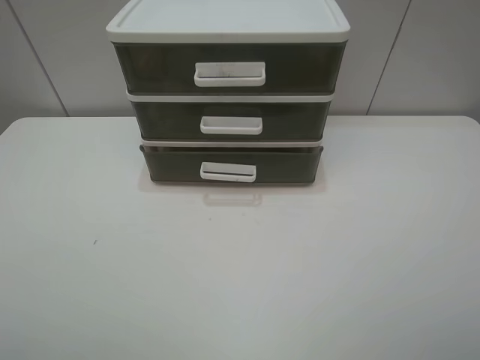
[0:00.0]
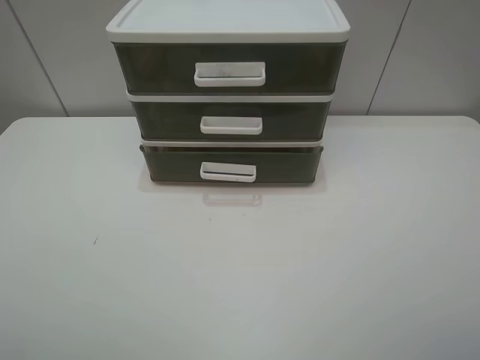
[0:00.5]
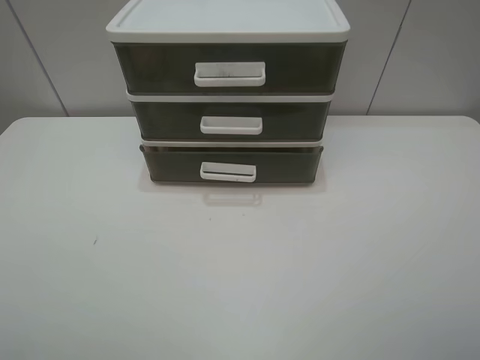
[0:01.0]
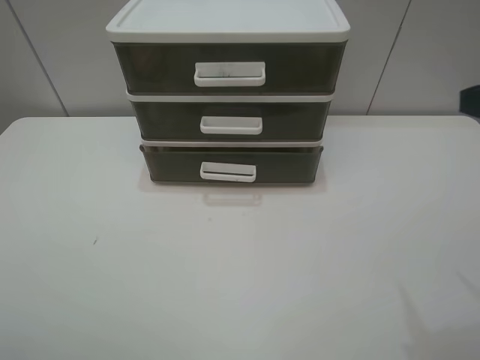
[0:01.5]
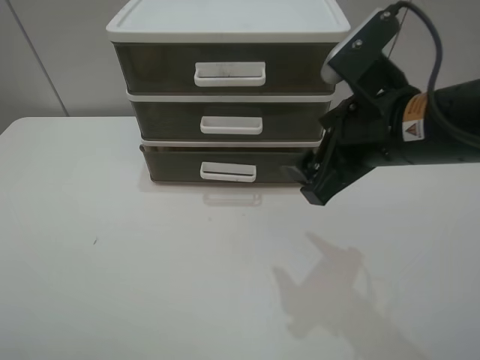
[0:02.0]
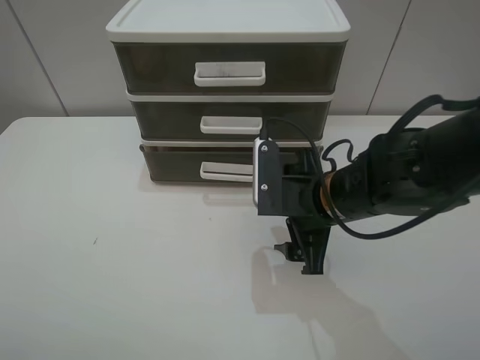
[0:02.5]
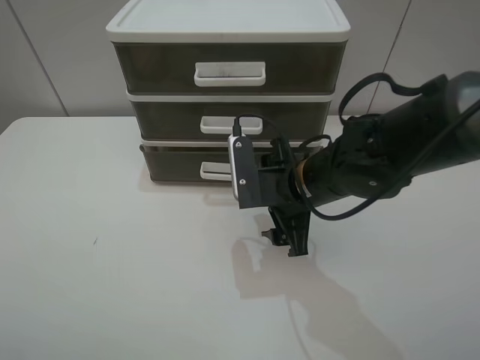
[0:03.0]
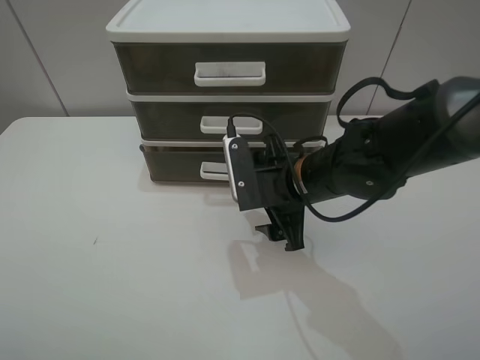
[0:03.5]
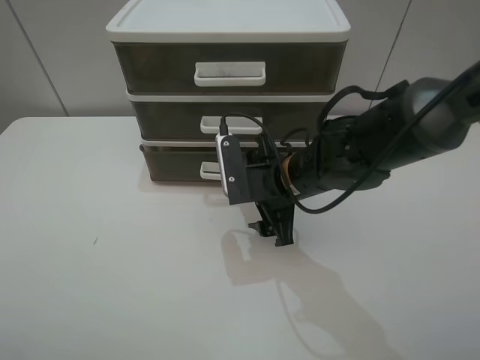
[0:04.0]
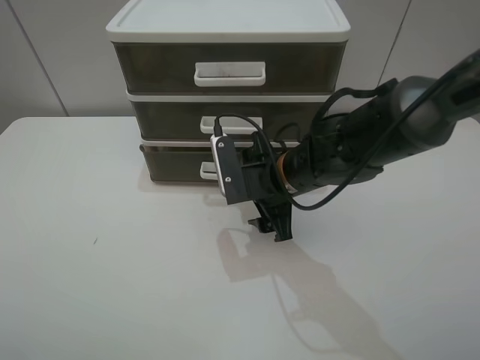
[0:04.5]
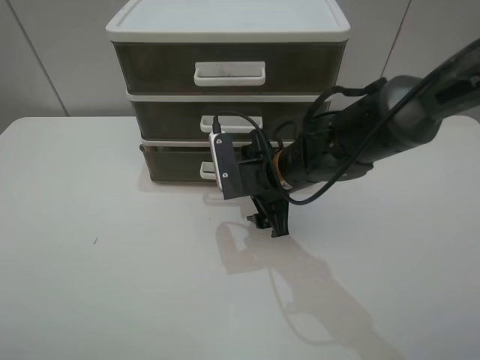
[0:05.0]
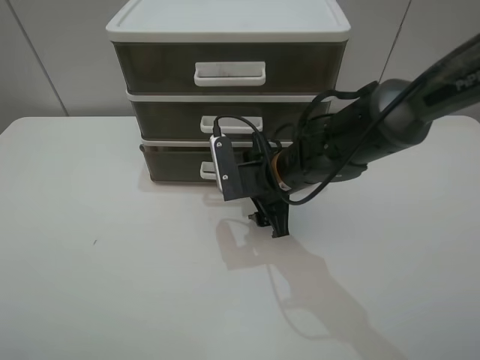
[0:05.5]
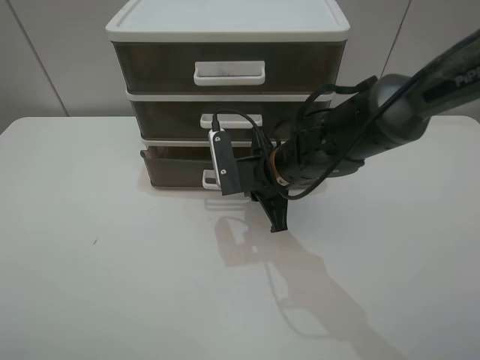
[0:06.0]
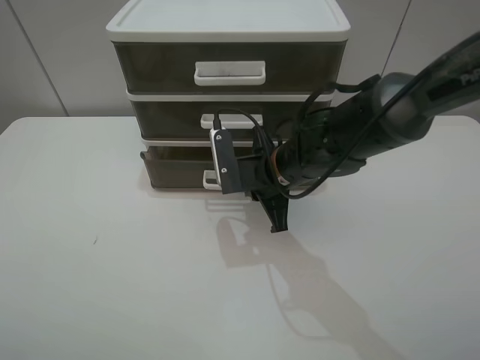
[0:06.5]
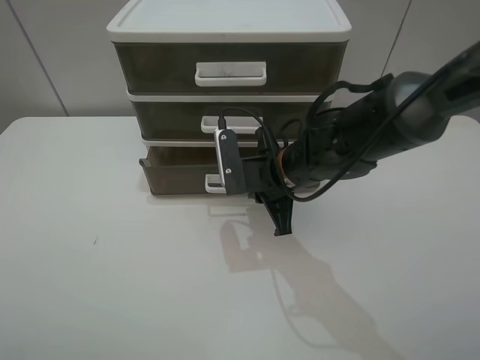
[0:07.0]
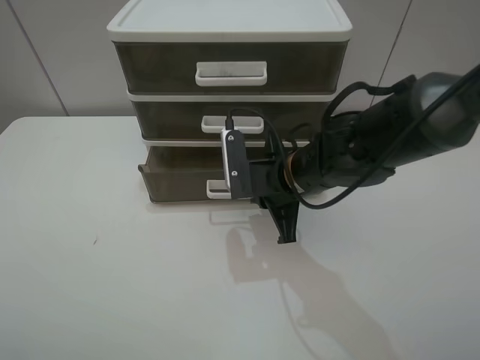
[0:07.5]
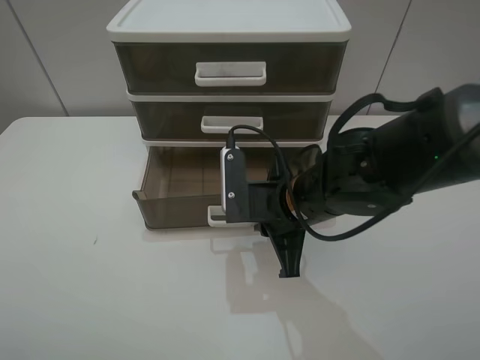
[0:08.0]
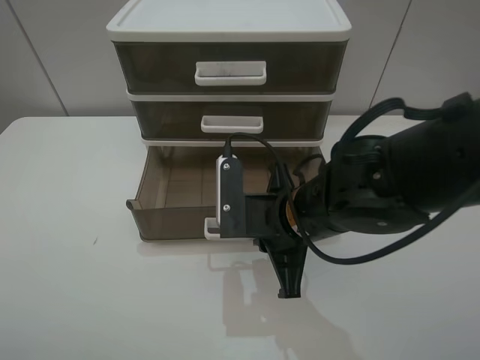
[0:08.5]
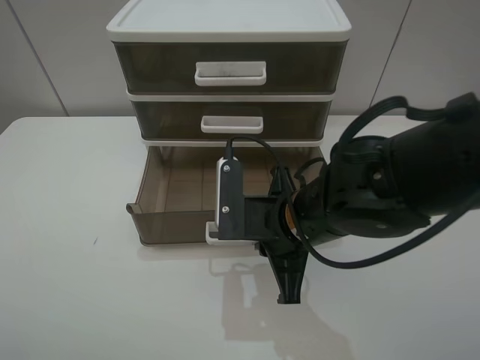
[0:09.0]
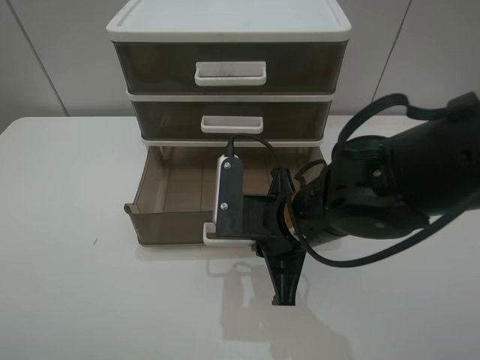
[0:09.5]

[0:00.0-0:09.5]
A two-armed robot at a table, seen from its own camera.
Task of the whole recording: open the bottom drawer.
Step, 0:00.0 to 0:06.0: Grab the bottom drawer with the right gripper.
0:00.0 to 0:02.0: The right gripper goes approximately 25 cm forward and to the left.
0:02.0 to 0:04.0: The right gripper shifts about 15 cm downward, forward and to the left.
0:04.0 to 0:05.5: The grippers move only a little.
0:05.5 to 0:07.5: The right gripper closes.
0:07.5 to 0:09.5: The right gripper travels backward by about 10 cm.

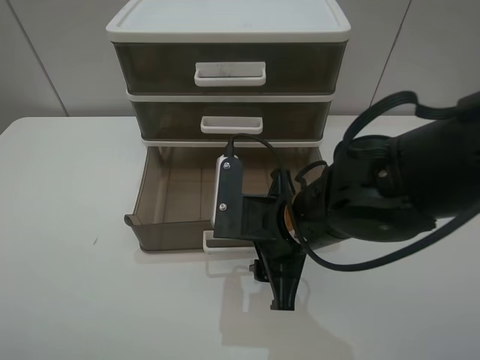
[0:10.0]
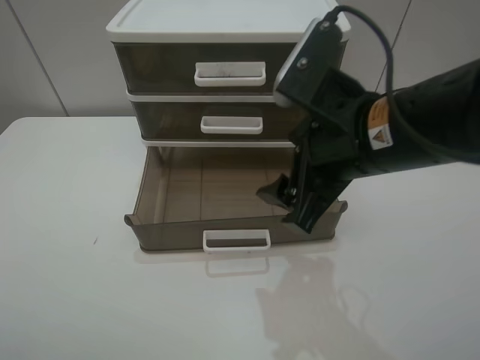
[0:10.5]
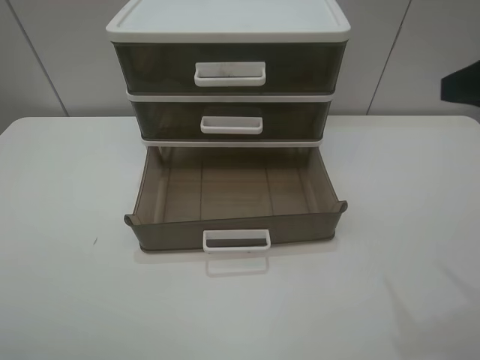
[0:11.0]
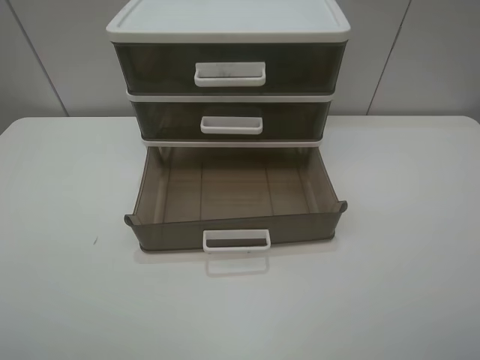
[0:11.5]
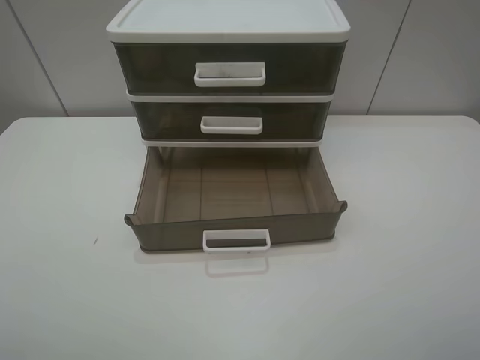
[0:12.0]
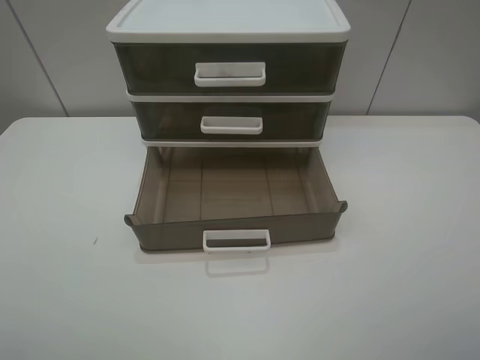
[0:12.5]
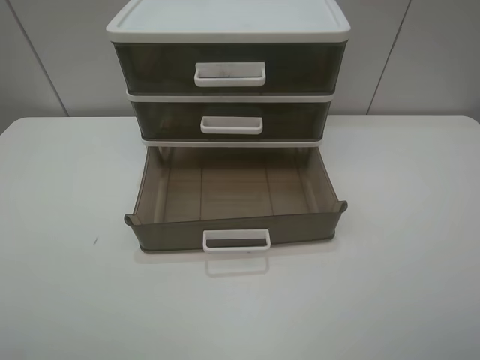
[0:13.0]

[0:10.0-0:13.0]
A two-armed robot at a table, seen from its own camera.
Task of the whole recording: open the bottom drawer.
0:10.0 to 0:11.5: The right gripper heads to the right, upward and backward, covering about 30 cm.

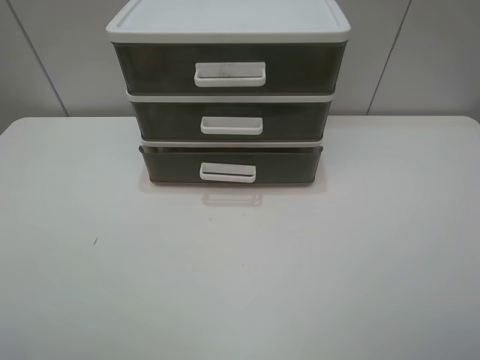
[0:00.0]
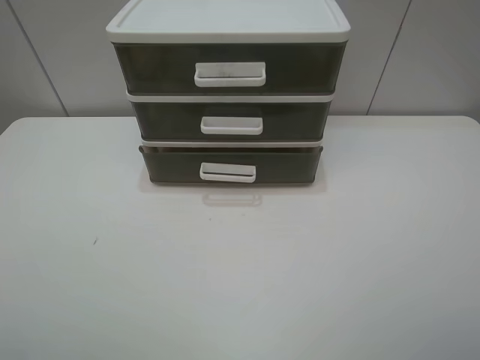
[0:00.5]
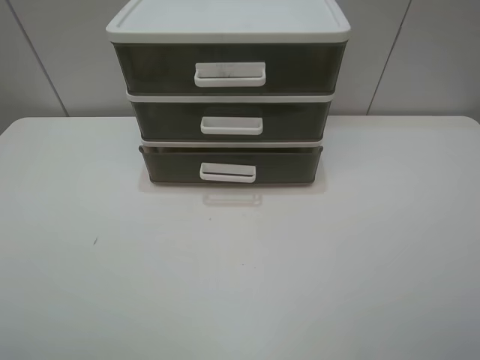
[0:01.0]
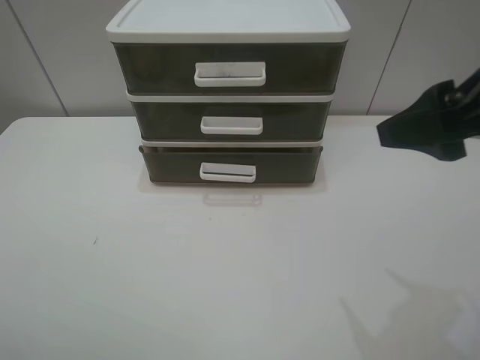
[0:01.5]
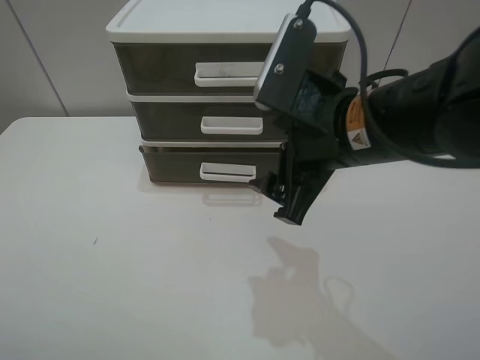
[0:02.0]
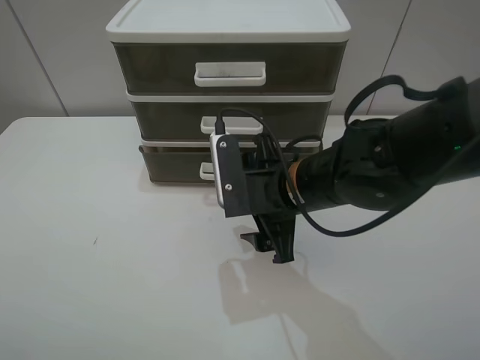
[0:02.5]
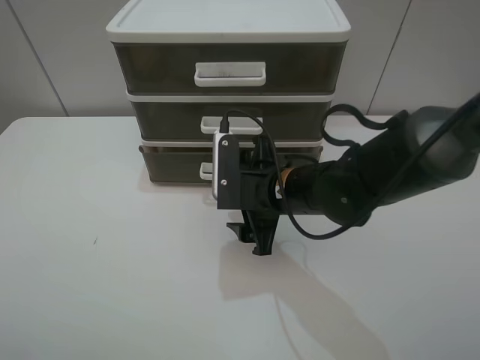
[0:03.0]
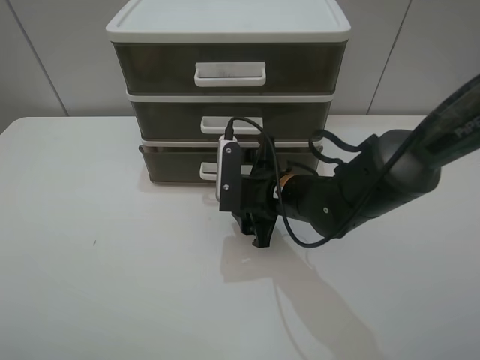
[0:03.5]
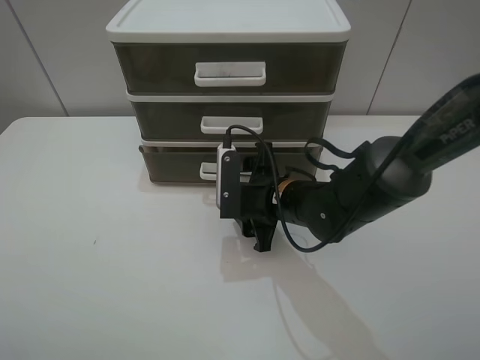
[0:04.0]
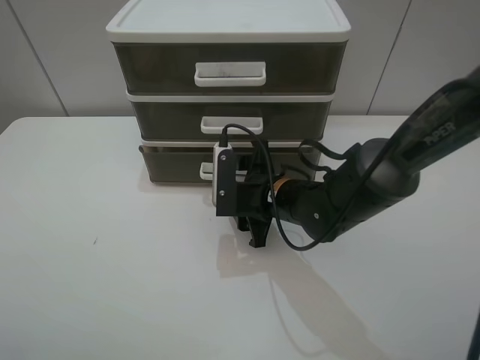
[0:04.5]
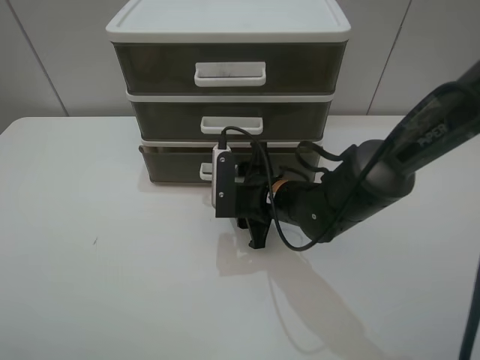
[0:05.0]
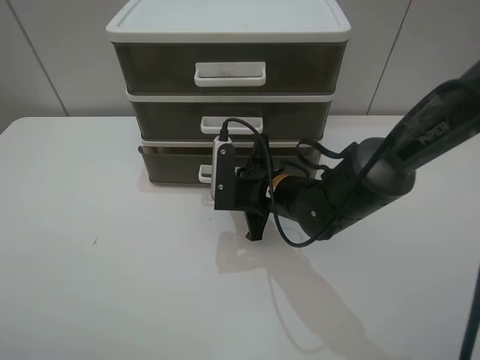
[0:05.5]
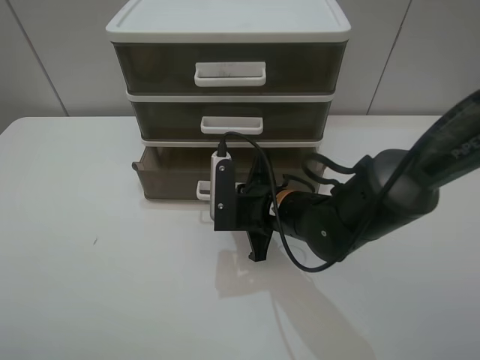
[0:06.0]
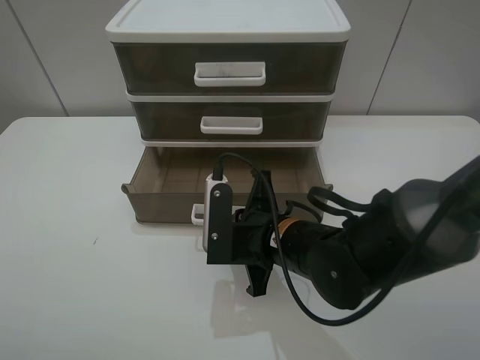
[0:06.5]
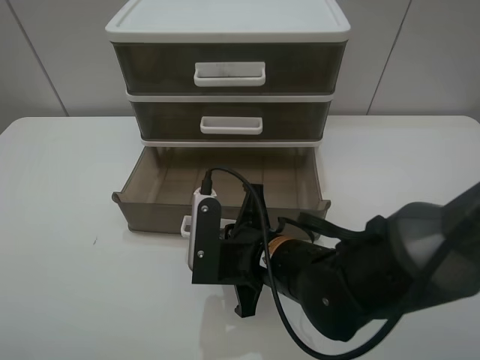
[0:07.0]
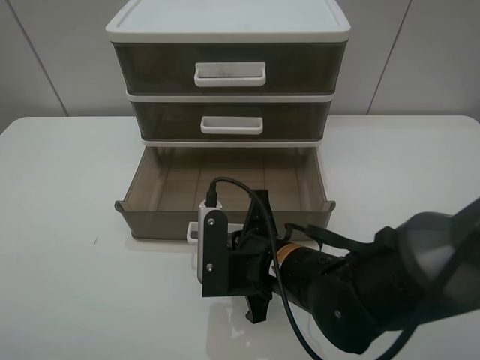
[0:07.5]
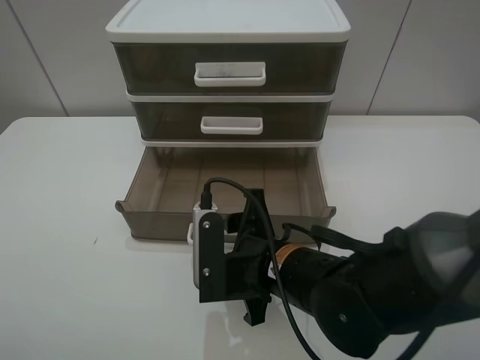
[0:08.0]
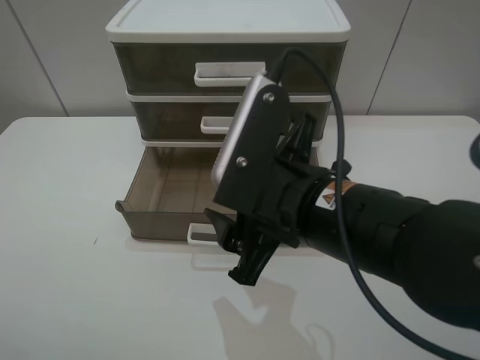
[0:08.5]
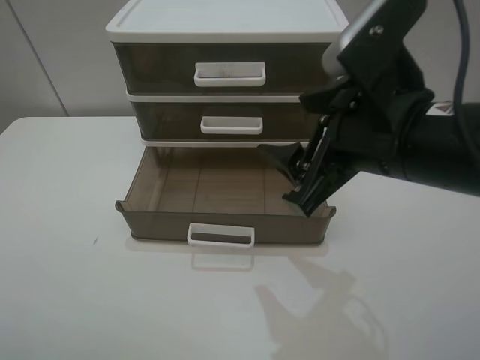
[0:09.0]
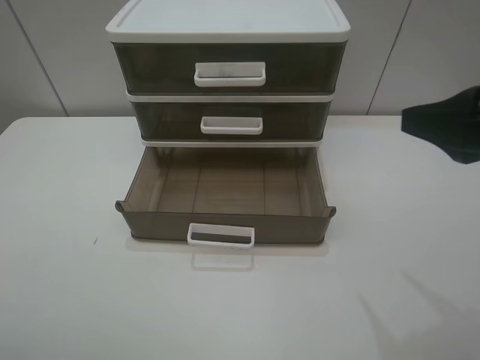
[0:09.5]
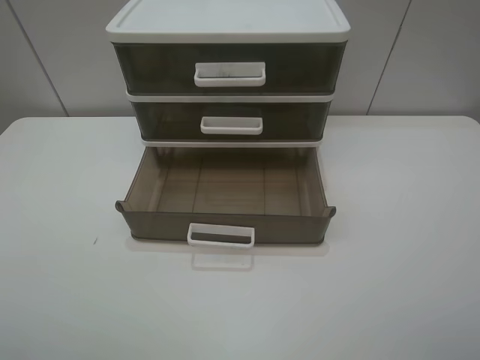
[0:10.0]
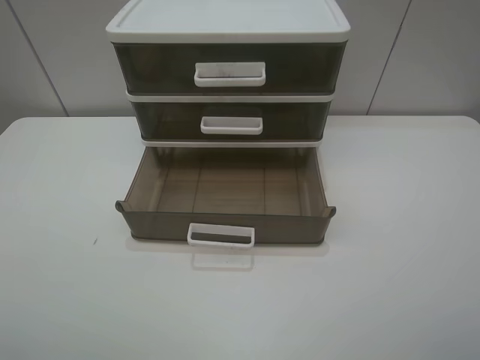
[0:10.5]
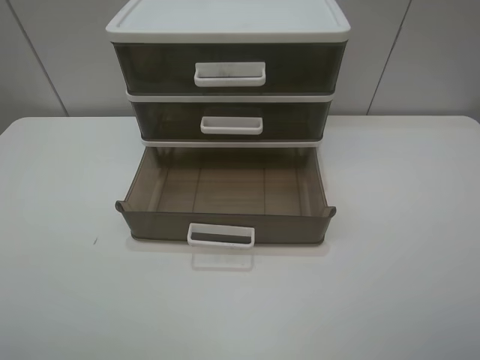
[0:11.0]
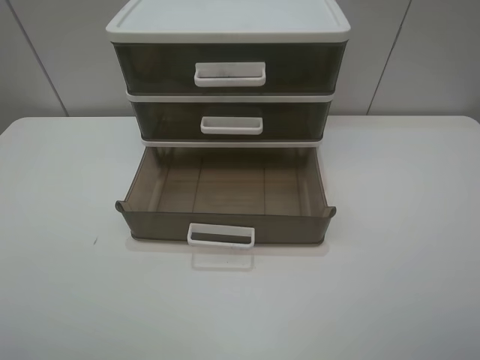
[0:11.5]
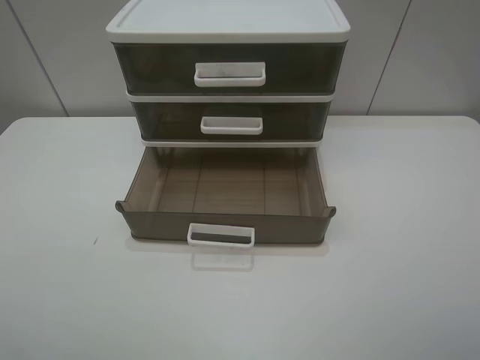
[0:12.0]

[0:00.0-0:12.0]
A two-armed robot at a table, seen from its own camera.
Task of the whole recording: open the bottom drawer.
Step, 0:00.0 to 0:05.0: Grab the bottom drawer with the right gripper.
Step, 0:05.5 to 0:08.0: Pull open the drawer with the right gripper.
0:00.0 to 0:02.0: The right gripper moves forward and to the left, about 30 cm.
0:02.0 to 0:04.0: The right gripper shifts about 15 cm downward.
0:04.0 to 0:06.0: The right gripper closes up.
0:06.0 to 0:08.0: The right gripper heads backward, covering roughly 10 cm, and opens its fingers.
0:08.0 to 0:10.0: The right gripper moves to the right, upward and backward, about 40 cm.

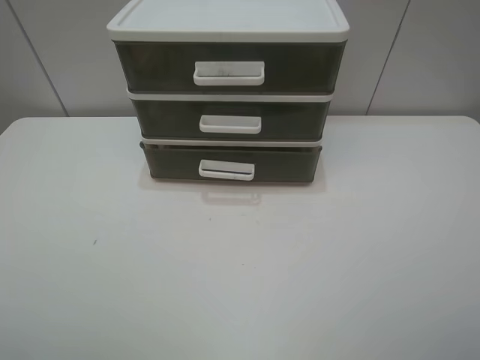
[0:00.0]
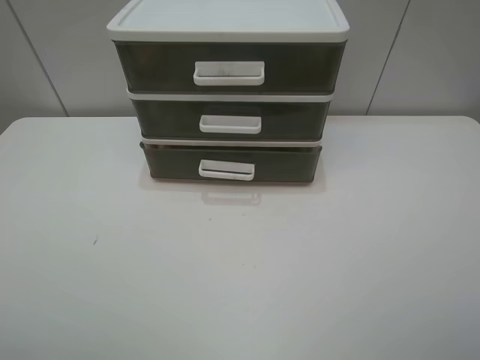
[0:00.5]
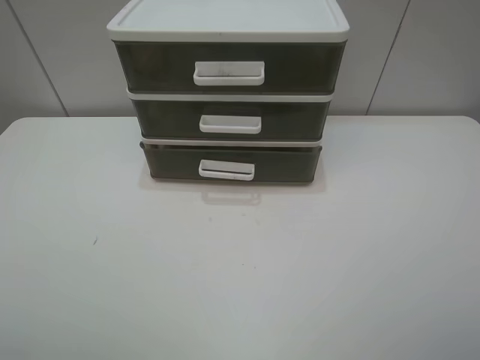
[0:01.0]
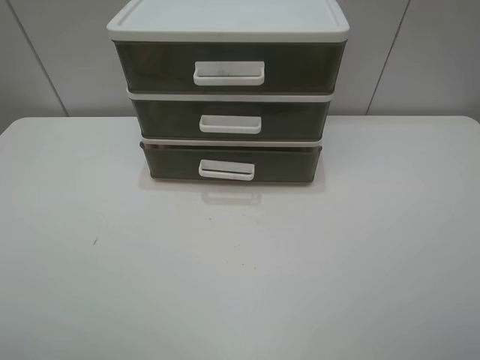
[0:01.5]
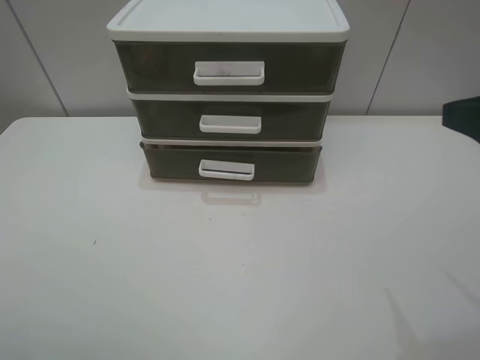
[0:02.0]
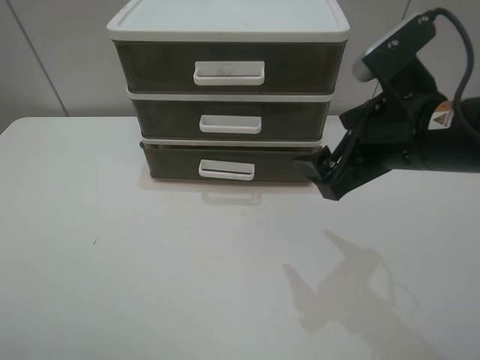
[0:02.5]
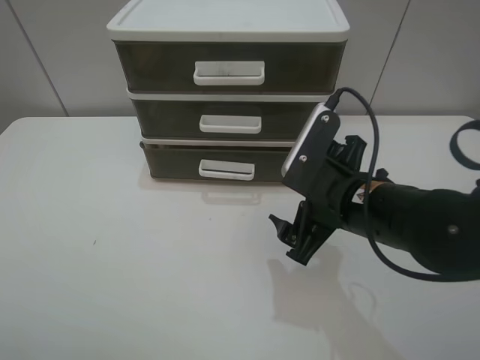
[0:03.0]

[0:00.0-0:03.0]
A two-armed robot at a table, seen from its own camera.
Task of the whole recording: open the bottom drawer.
0:01.5 to 0:03.0: The right gripper goes some 30 cm to the left, forward and downward.
